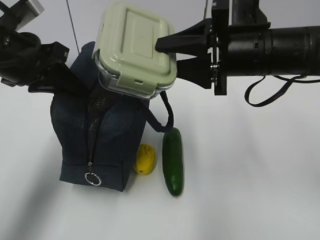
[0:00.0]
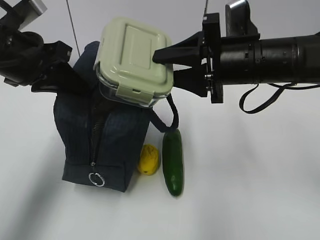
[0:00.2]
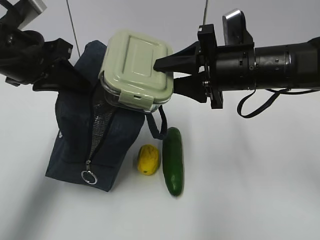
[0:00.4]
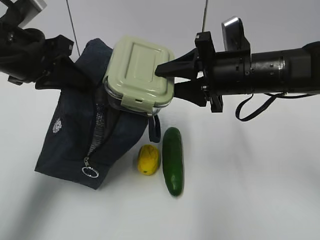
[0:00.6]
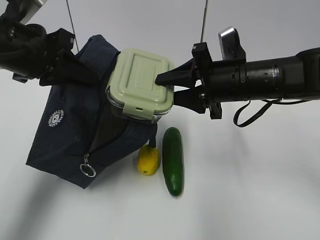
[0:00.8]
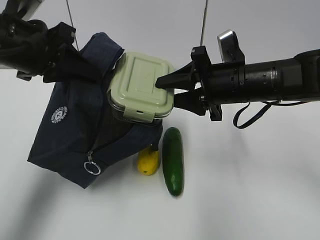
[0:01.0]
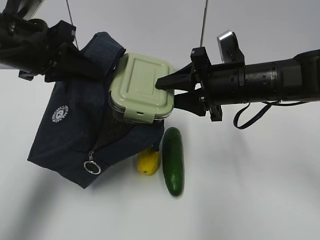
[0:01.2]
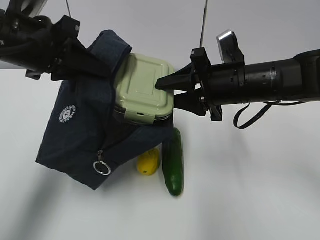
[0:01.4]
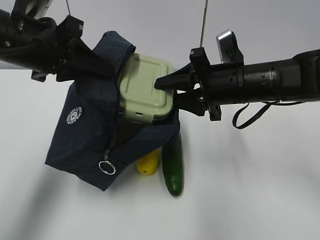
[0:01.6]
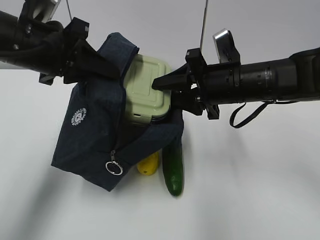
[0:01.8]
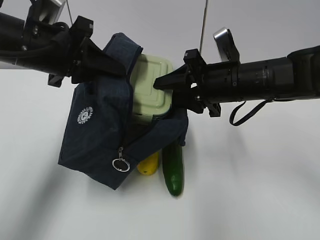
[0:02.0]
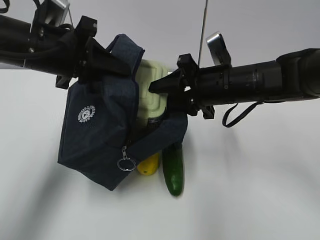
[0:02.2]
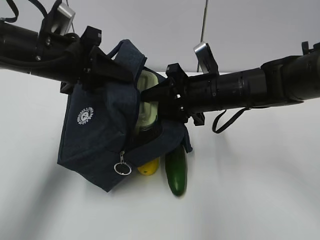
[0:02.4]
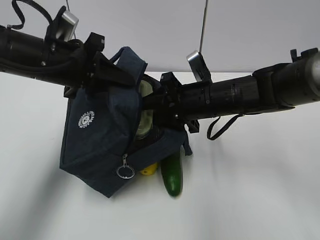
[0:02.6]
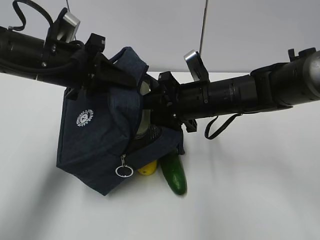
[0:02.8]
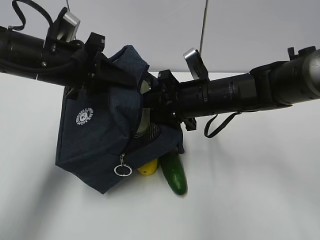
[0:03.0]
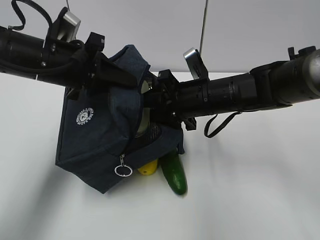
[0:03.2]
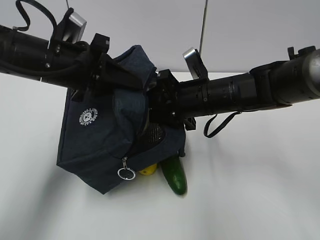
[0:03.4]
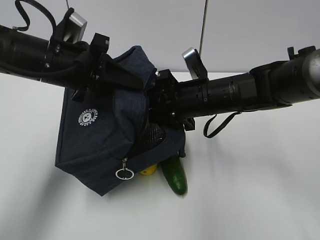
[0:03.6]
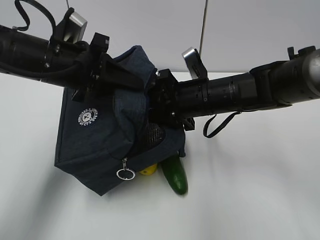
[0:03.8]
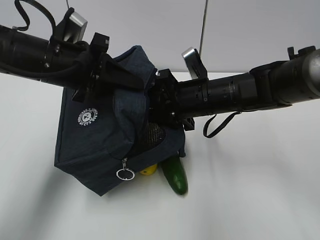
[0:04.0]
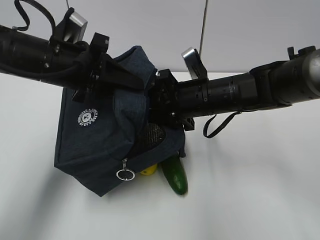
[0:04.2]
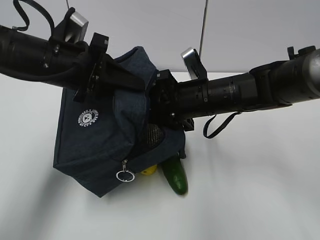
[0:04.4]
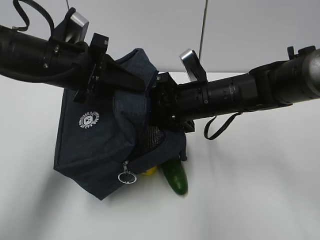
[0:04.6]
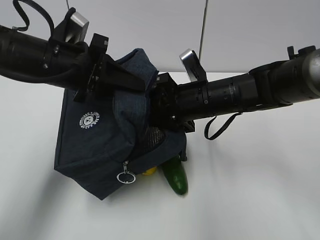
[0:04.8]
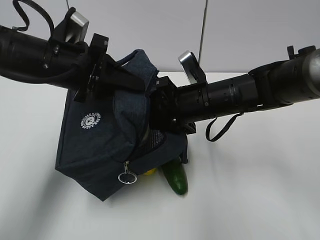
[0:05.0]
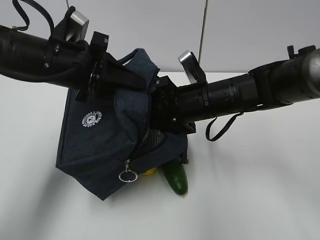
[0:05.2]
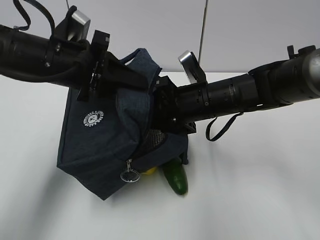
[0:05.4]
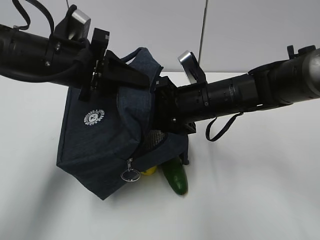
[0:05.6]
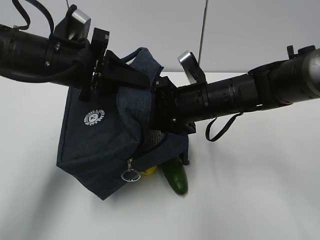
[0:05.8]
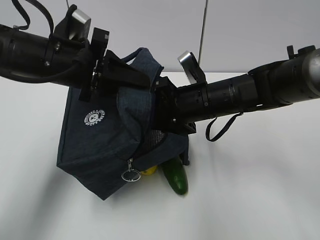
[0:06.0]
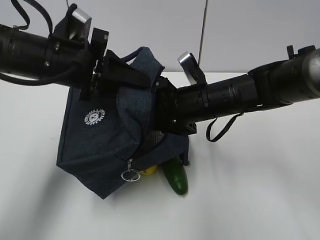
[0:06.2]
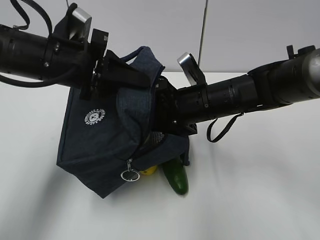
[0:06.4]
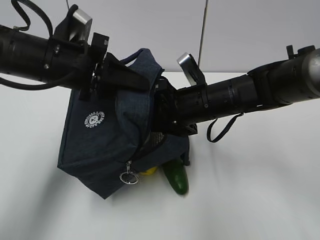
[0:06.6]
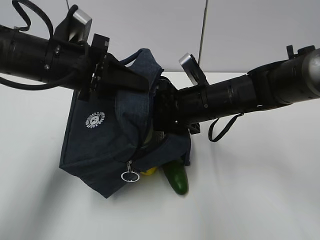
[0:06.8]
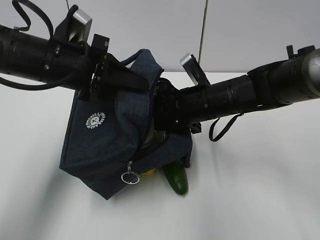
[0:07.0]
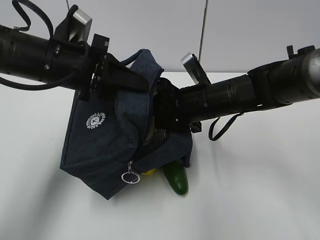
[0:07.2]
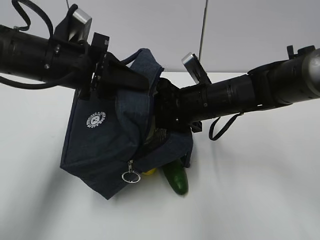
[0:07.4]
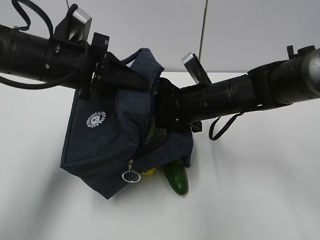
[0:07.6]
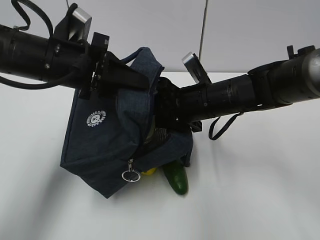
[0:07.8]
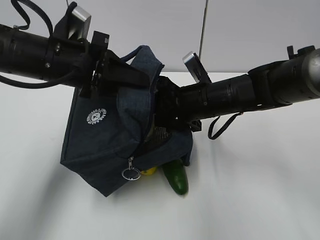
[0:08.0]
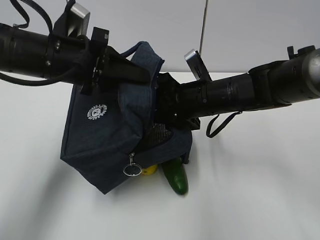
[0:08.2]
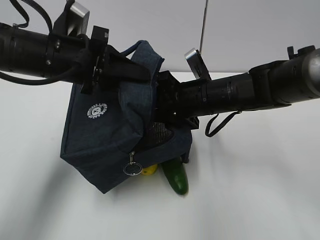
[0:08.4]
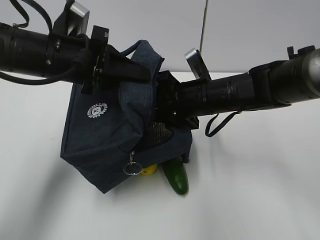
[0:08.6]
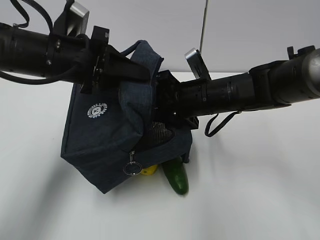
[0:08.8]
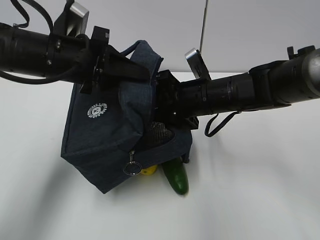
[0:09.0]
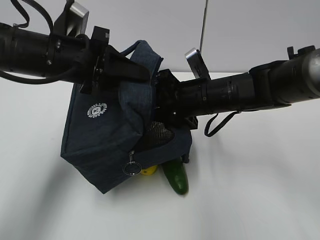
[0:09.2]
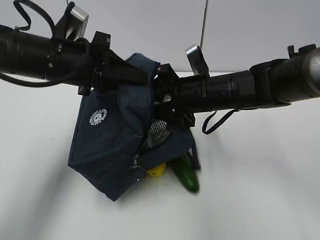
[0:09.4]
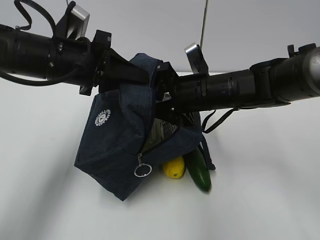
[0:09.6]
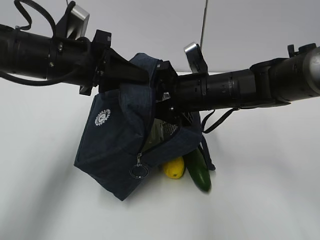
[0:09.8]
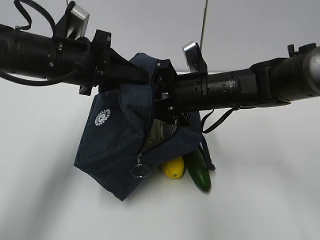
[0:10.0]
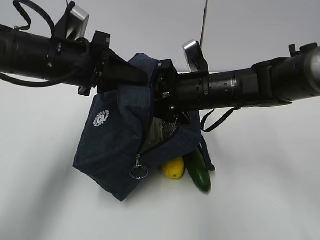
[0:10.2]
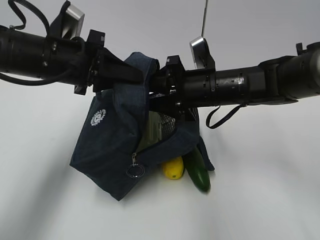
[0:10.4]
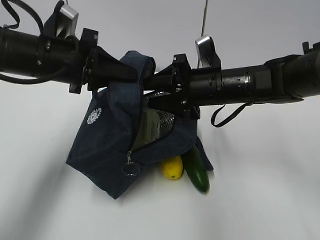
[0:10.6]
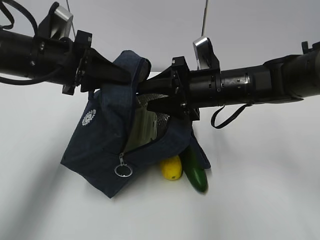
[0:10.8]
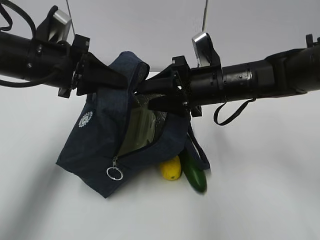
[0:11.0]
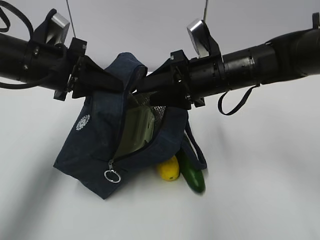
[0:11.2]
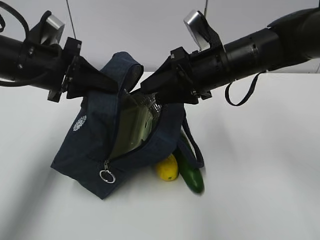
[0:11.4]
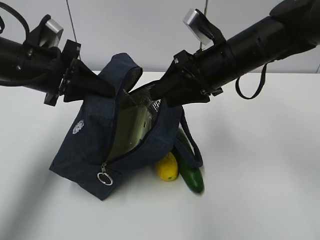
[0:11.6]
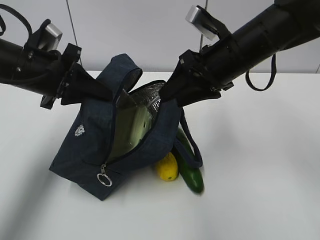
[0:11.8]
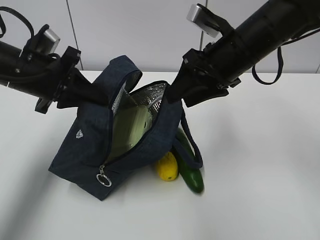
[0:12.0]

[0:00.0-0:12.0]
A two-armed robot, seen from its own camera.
Step, 0:00.0 to 0:03.8: Place it into the bag with your right hand.
Step, 0:04.0 to 0:10.2: Grab the cucumber with your right hand.
0:00.0 to 0:01.6: The right gripper travels downward by approximately 5 cm.
0:01.6 to 0:03.0: The right gripper moves some 5 cm. Meanwhile the left gripper ends up some 5 cm from where it was.
0:03.0 to 0:04.4: The two grippers keep their place.
0:04.4 to 0:06.0: The two grippers keep their place.
0:06.0 to 0:10.4: The grippers stay close to where they were, moving slightly.
0:10.4 to 0:12.0: The right gripper goes roughly 10 cm upward. The left gripper ends up some 5 cm from where it was.

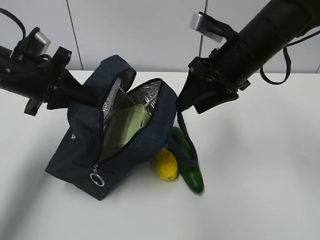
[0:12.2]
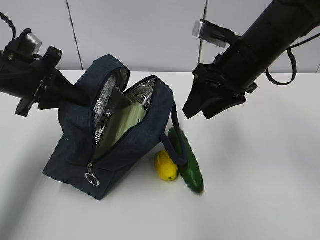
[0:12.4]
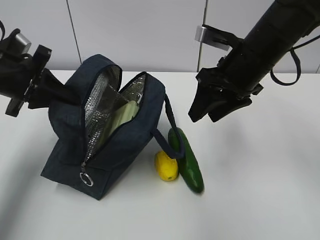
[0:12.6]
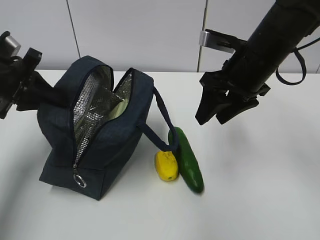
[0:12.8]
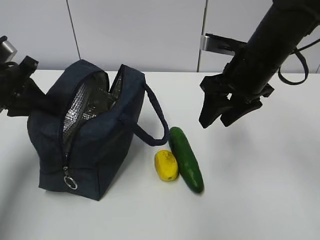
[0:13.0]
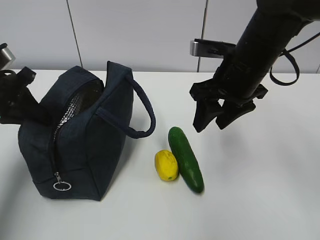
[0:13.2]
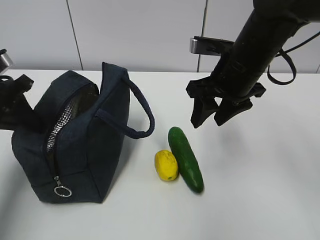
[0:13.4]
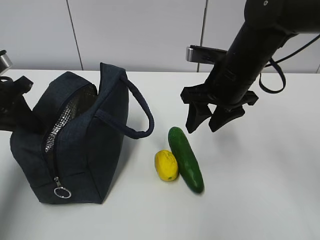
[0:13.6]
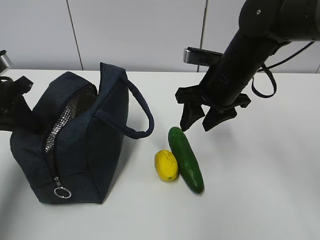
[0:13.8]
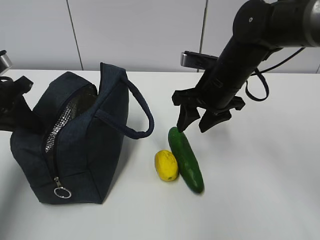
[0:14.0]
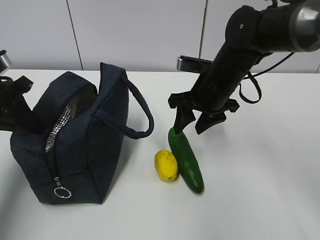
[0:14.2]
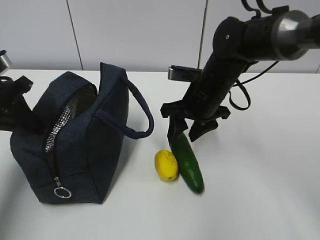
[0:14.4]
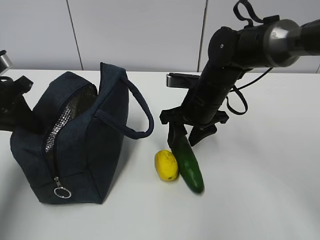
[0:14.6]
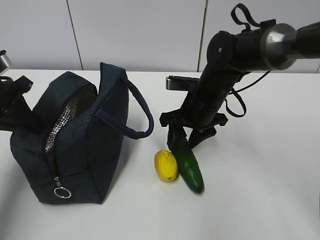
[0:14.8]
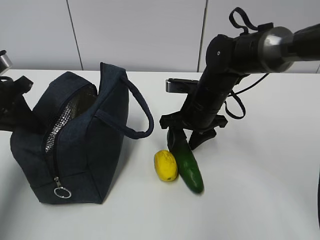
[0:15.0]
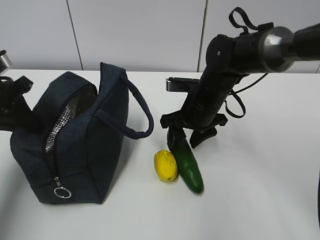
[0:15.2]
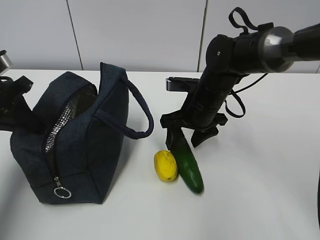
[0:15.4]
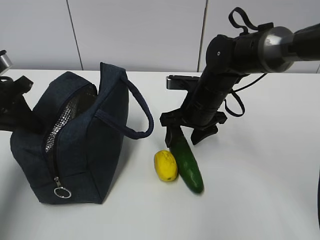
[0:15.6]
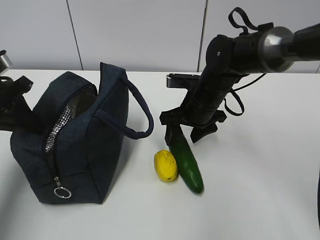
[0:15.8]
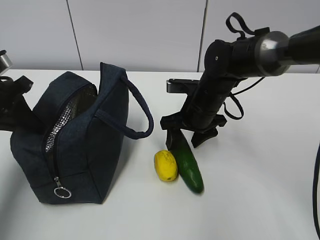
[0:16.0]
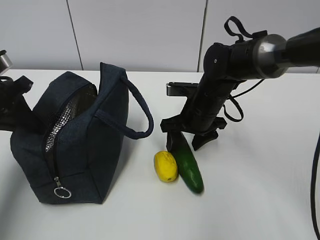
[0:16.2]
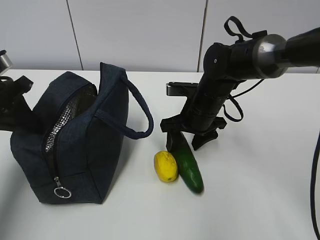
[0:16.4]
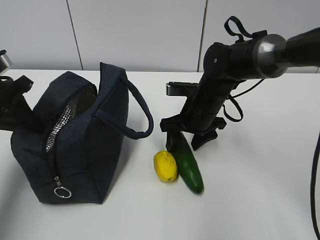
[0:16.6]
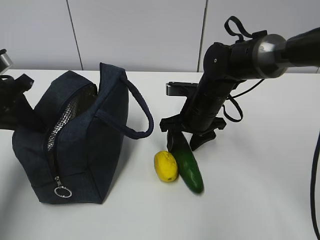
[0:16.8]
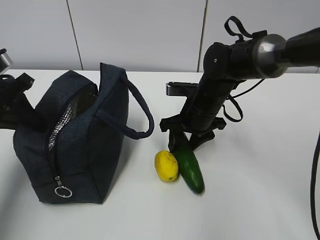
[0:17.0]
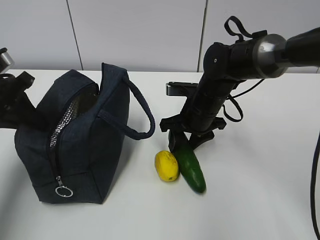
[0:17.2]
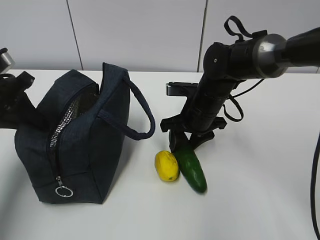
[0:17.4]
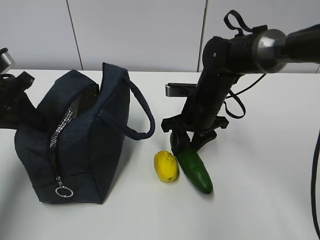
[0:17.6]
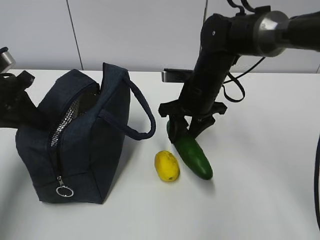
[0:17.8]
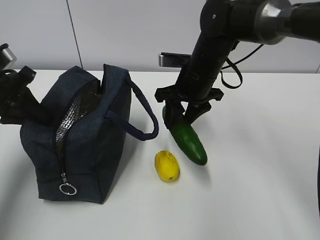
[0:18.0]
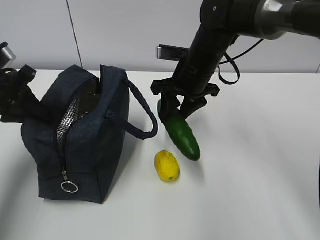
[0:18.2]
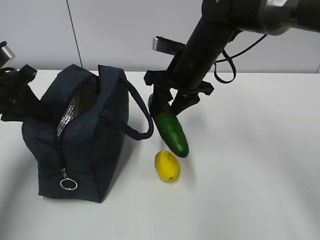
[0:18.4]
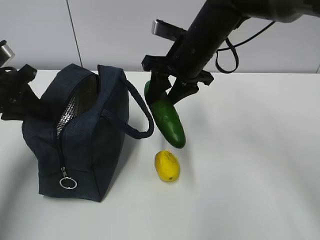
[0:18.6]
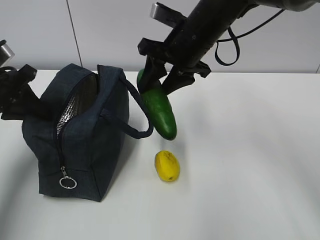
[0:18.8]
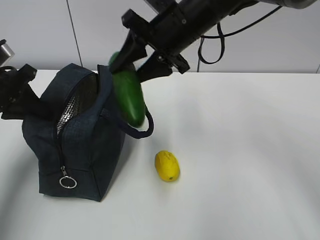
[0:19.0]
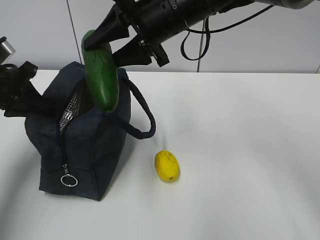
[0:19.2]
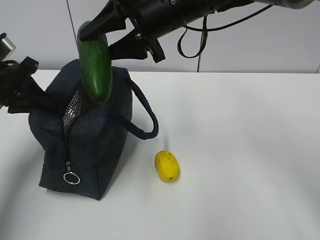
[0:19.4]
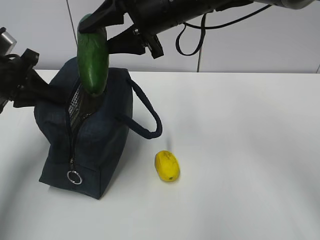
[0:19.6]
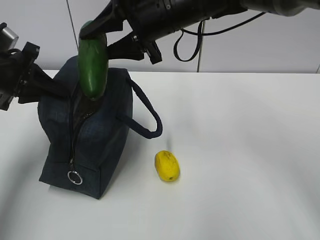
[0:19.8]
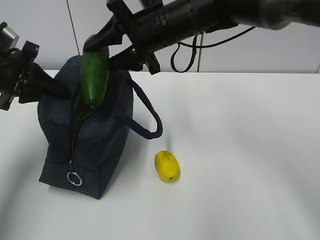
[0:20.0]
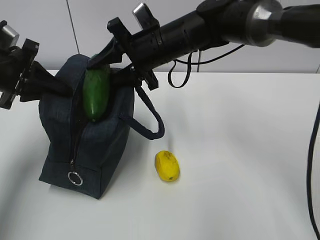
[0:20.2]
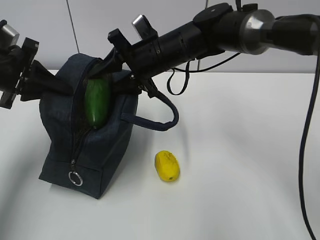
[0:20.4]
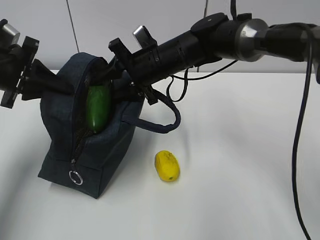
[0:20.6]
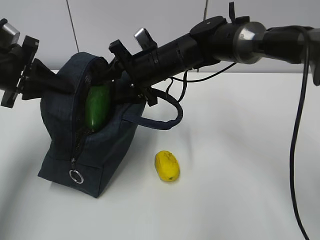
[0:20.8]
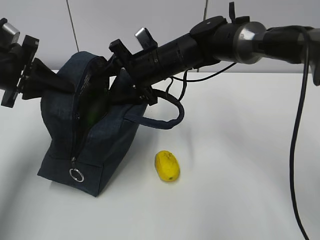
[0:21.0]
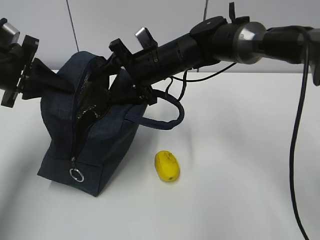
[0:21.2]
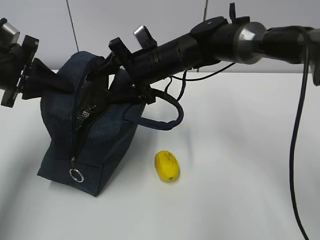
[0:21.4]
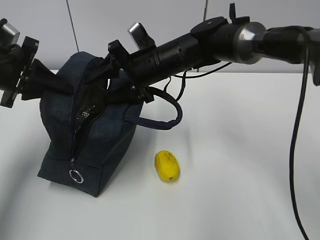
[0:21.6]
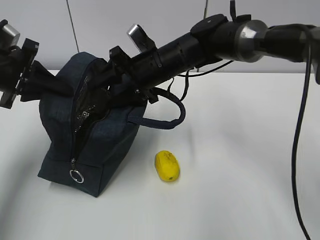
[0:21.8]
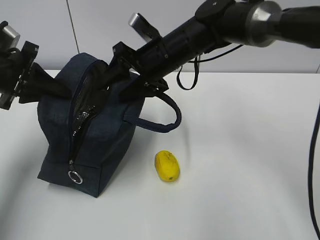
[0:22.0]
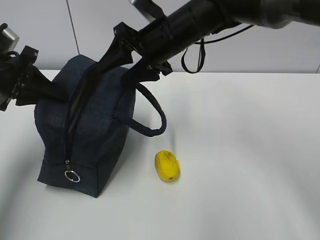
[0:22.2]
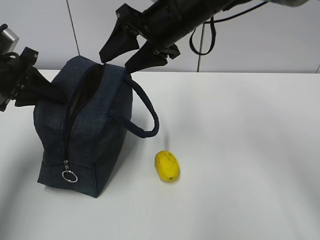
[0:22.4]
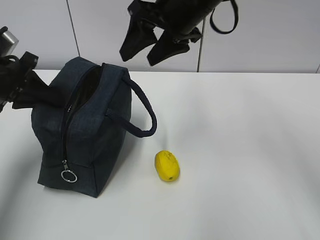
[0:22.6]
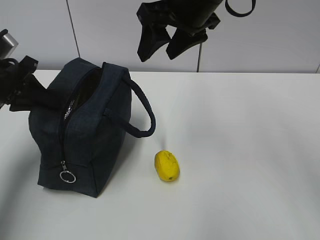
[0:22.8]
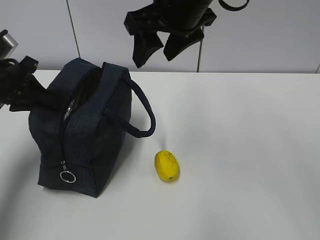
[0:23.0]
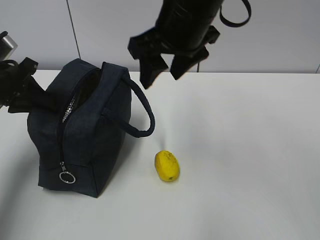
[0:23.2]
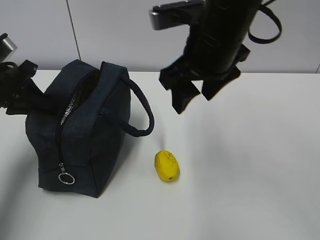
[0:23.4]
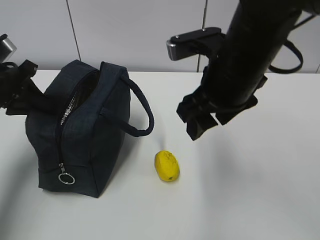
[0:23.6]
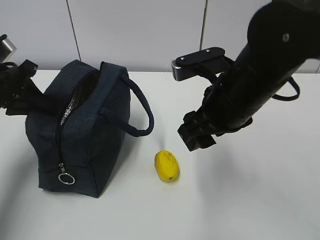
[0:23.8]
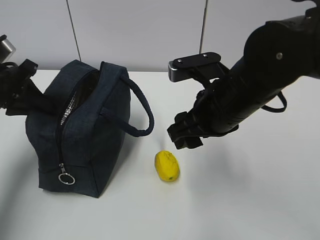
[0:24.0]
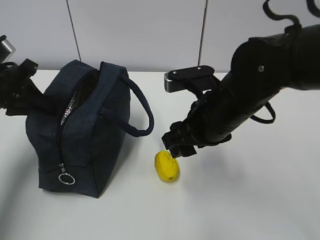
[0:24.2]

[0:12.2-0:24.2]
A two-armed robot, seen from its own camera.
Step, 0:13.8 to 0:18.4: Grab the lemon with your right hand.
Step, 0:22.0 to 0:24.0: Grab the lunch bag with your right hand.
0:12.2 to 0:13.8: The left gripper heads to the left, covering roughly 5 cm.
0:13.8 to 0:15.2: The right gripper moves downward, roughly 5 cm.
0:15.2 to 0:16.6: The grippers move only a little.
0:16.6 to 0:18.2: The right gripper shifts about 10 cm upward.
0:18.2 to 0:19.8: The right gripper heads upward and to the left, covering about 10 cm.
0:19.8 to 0:21.2: The right gripper is displaced downward by some 10 cm.
0:21.2 to 0:22.6: The right gripper is displaced upward and backward by roughly 15 cm.
0:22.6 to 0:24.2: The right gripper shifts about 15 cm downward and backward.
